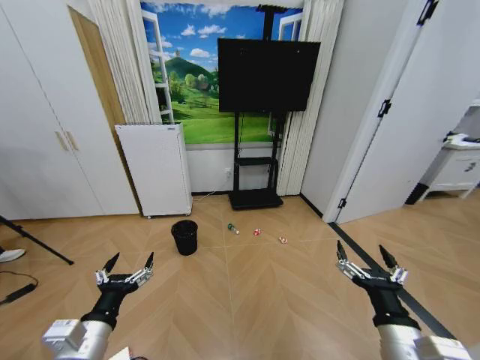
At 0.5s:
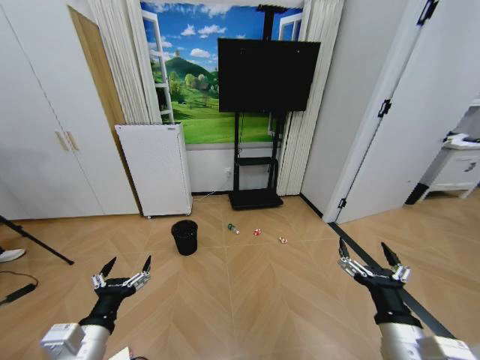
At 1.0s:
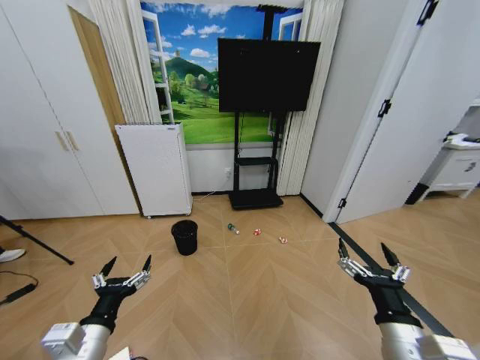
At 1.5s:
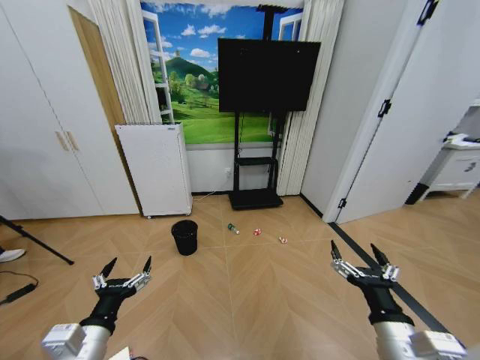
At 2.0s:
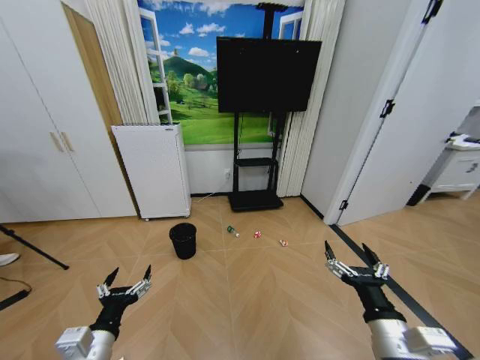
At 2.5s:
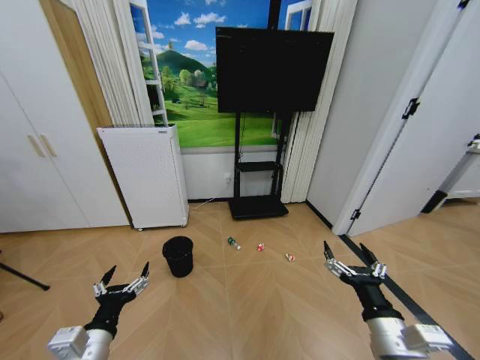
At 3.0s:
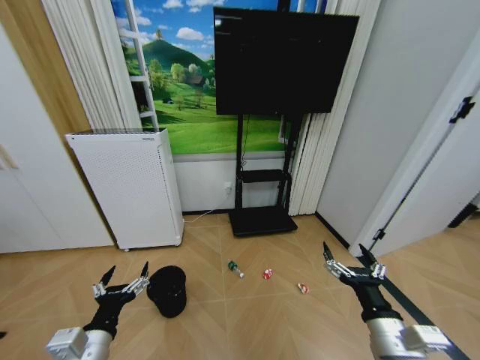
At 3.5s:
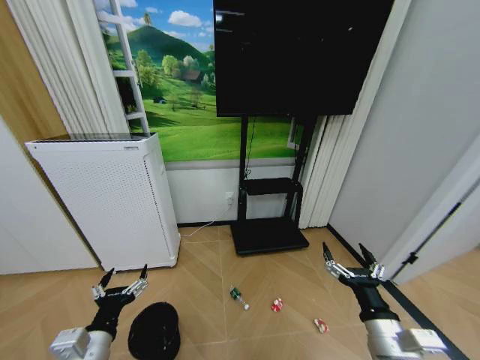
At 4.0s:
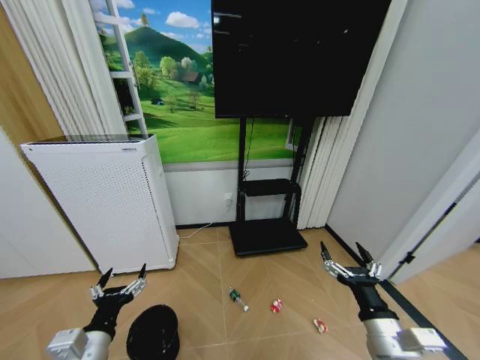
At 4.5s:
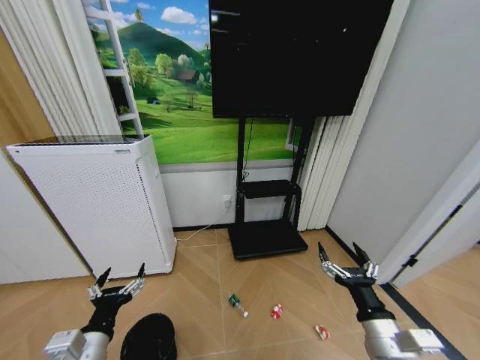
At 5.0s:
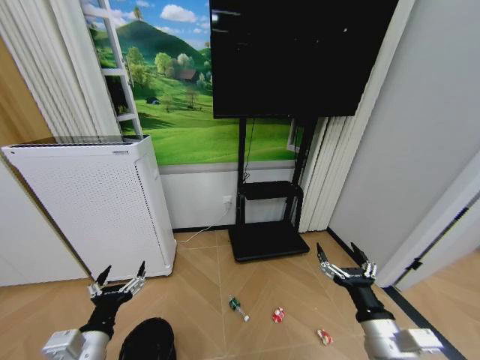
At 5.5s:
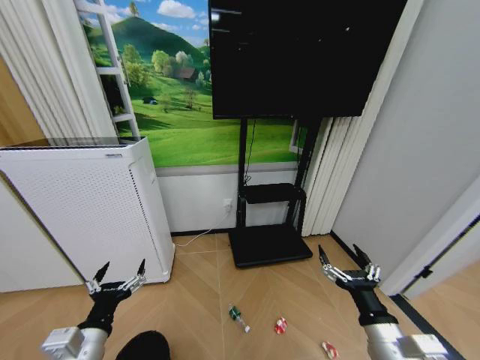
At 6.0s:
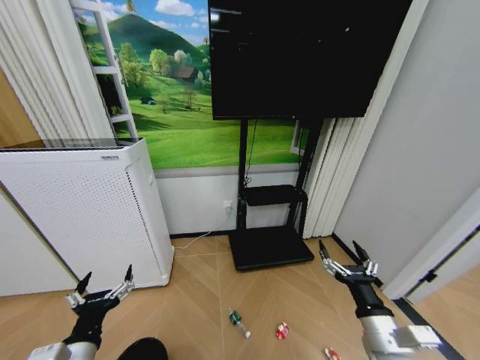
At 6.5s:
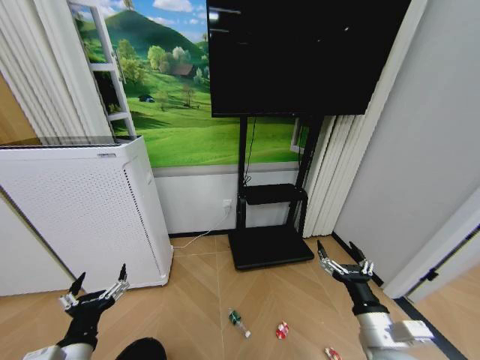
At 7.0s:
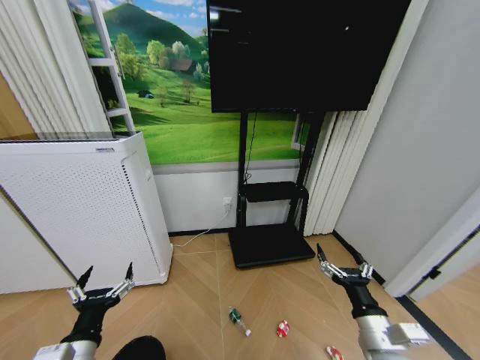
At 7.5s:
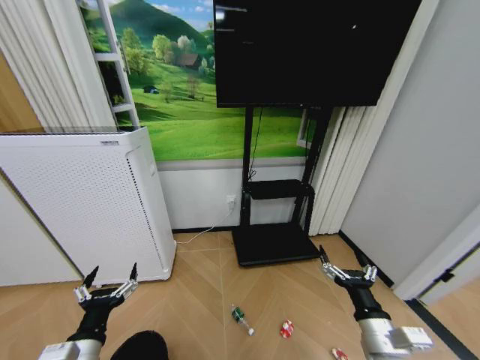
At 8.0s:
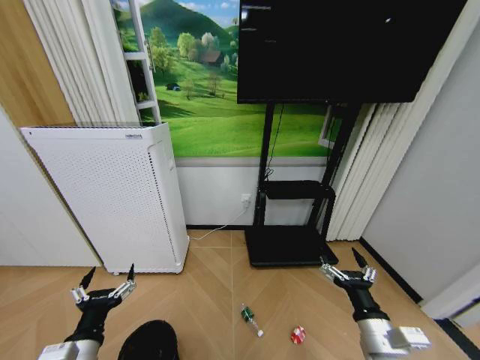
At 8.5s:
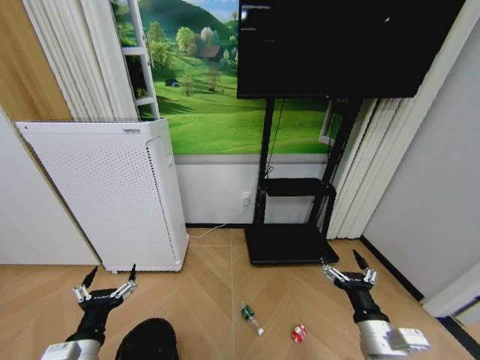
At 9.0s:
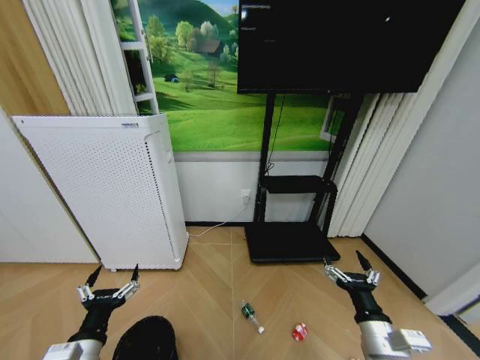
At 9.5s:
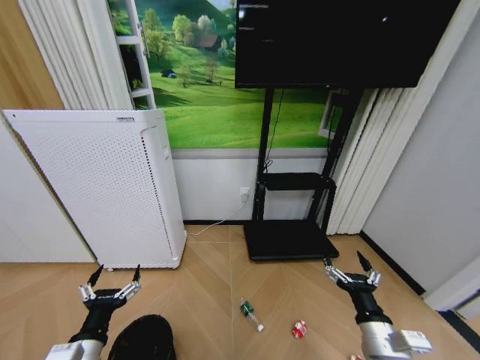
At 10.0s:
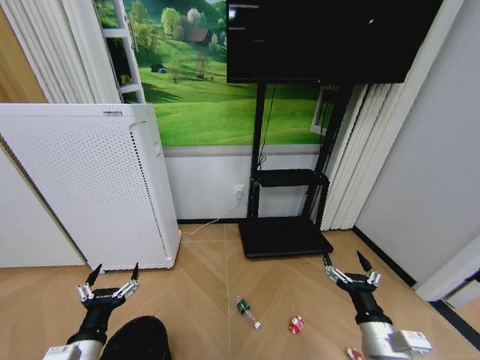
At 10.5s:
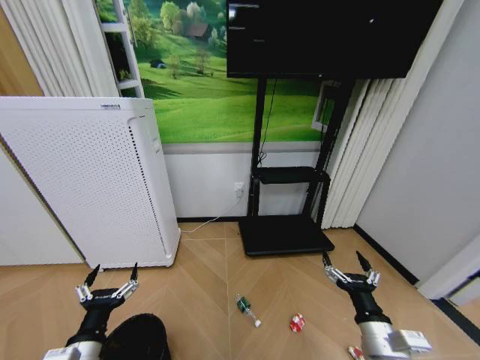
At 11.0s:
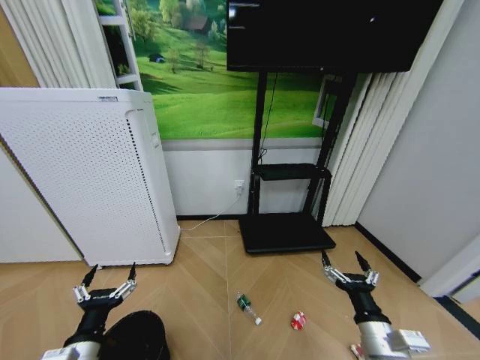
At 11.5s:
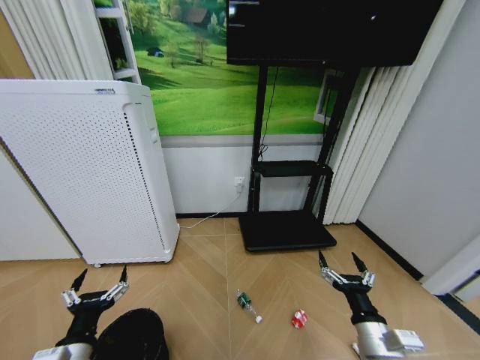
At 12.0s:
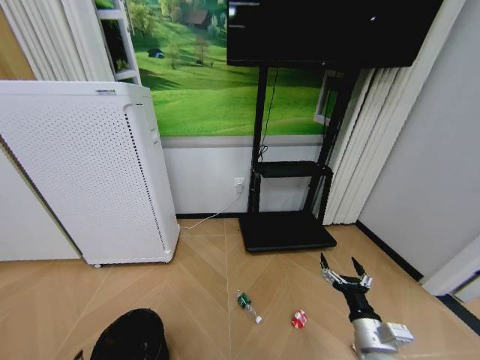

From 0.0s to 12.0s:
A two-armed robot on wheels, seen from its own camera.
Task of the whole recording: Pick up the trash bin and place the garbage on the floor into it.
From 10.0s to 12.0s: The left gripper moves backward and to the left, approximately 10 cm.

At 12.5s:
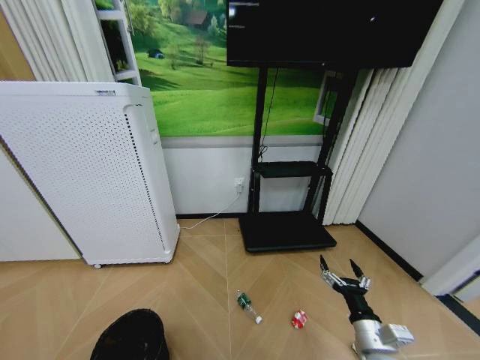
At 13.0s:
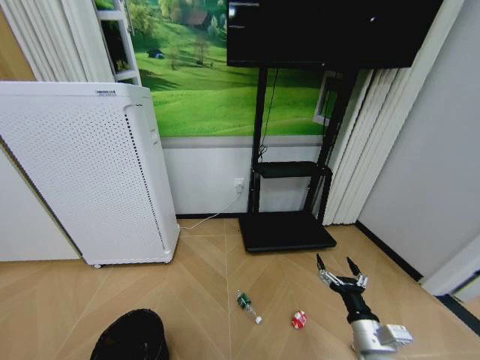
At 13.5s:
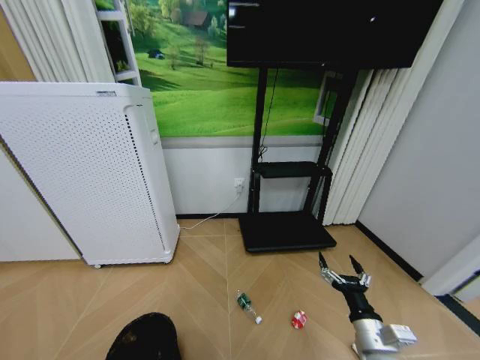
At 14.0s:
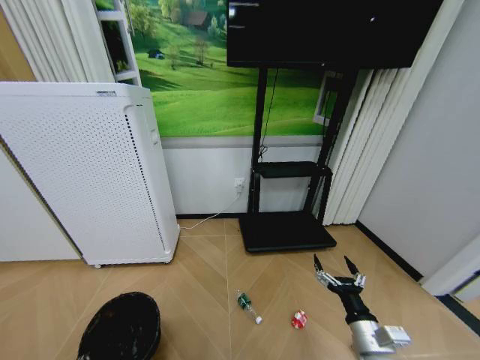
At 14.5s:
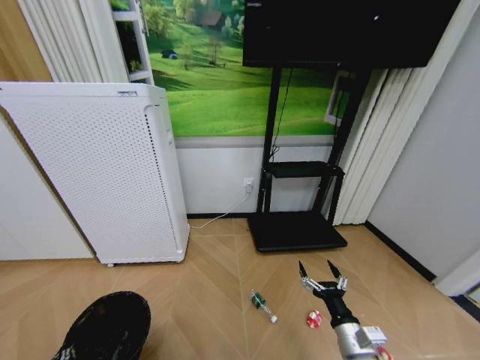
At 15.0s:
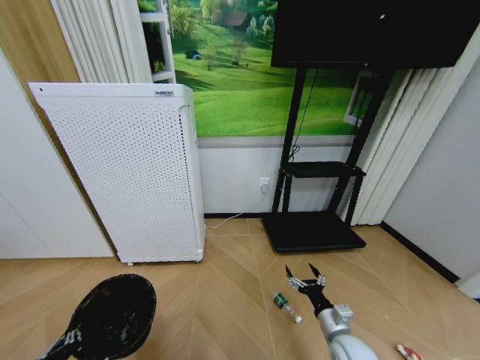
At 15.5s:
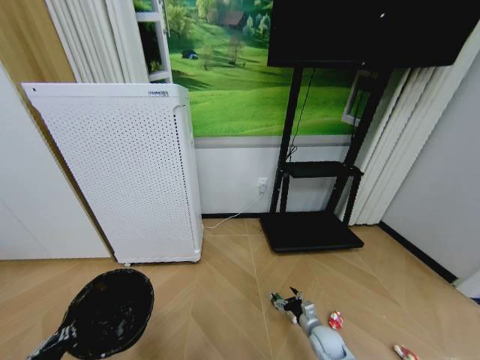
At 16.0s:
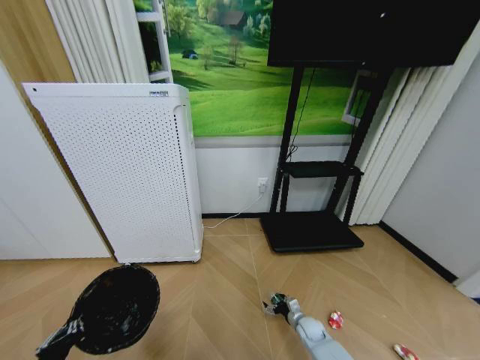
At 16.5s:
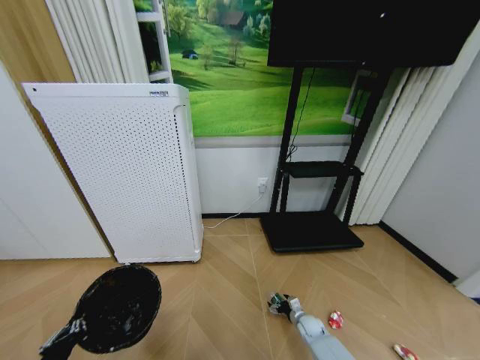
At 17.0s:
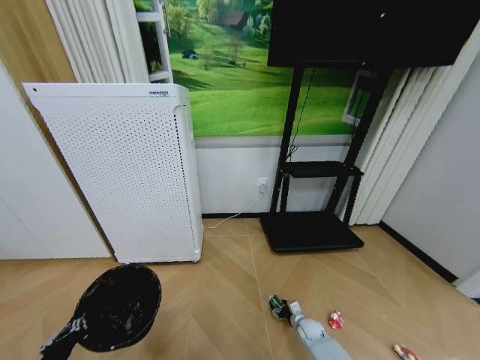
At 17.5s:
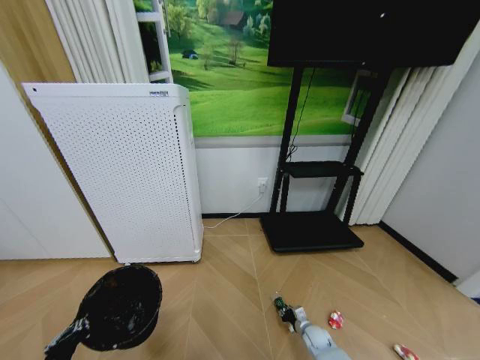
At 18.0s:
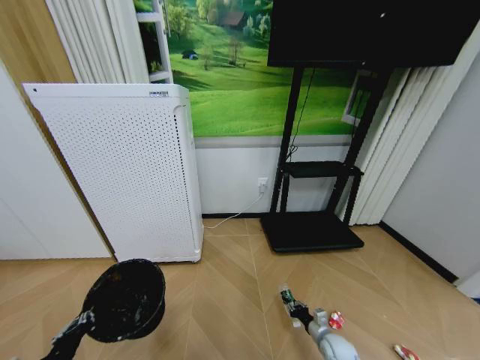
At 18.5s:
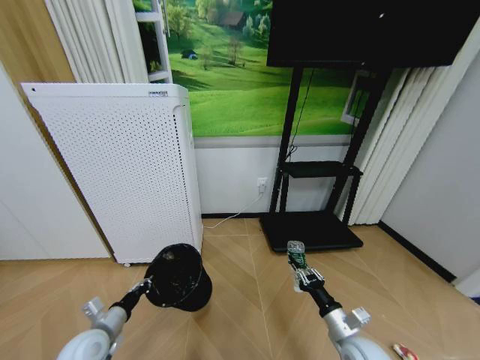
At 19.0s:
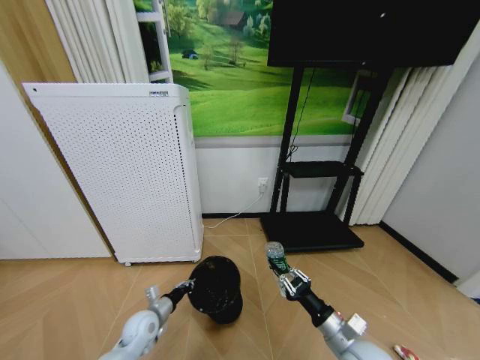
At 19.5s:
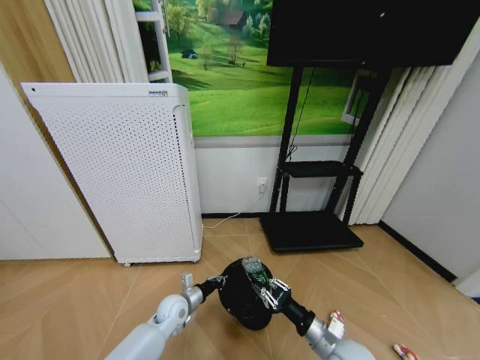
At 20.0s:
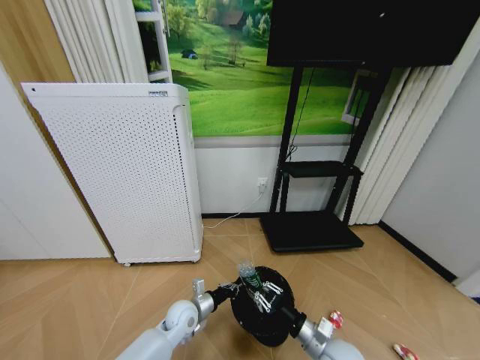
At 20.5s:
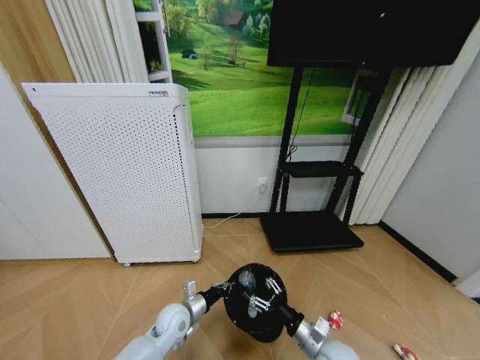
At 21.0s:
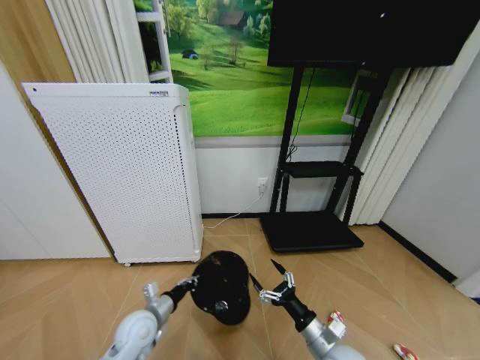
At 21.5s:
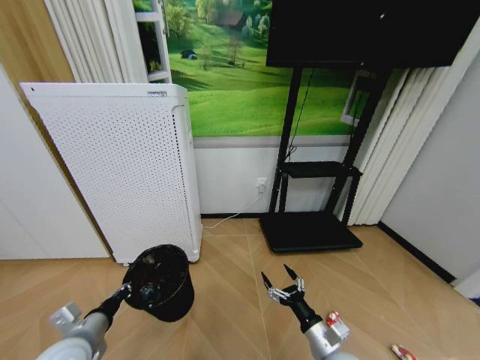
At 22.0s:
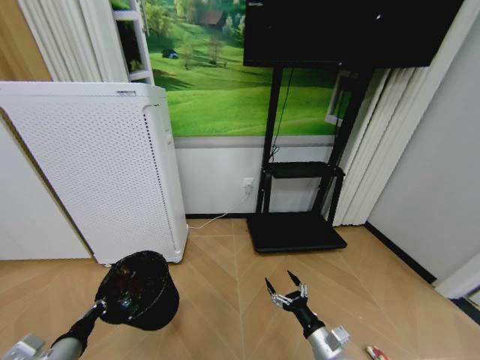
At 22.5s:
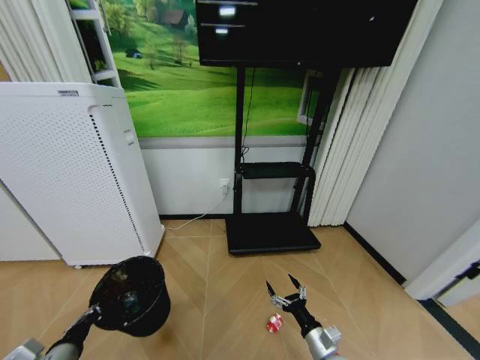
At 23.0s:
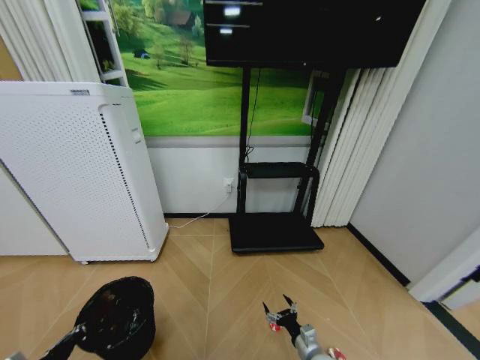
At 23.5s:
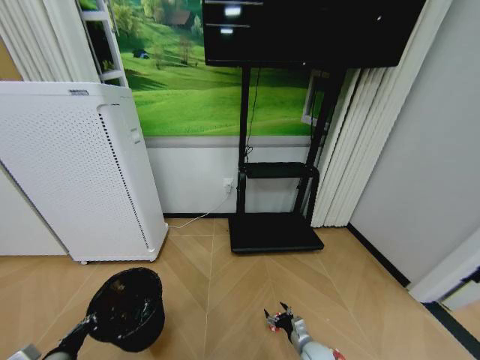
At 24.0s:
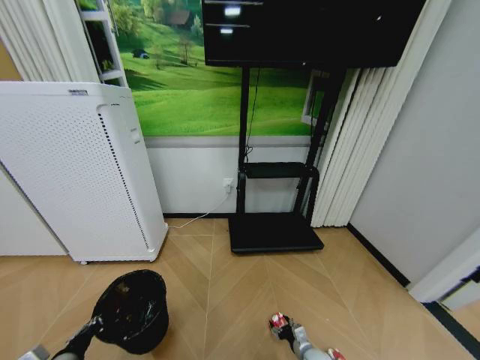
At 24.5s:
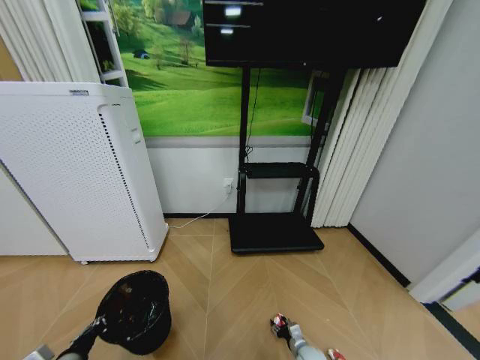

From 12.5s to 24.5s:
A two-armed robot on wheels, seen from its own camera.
Task of the whole recording: Pick up the trash bin and place the garbage on the floor into it.
From 12.5s to 14.5s: The left gripper closes up.
From 14.5s to 16.5s: The right gripper heads downward and forward, covering approximately 30 cm. Meanwhile the left gripper moves upward, some 5 cm.
From 16.5s to 18.5s: The left gripper is displaced forward and downward by about 15 cm. The right gripper shifts roughly 25 cm upward and backward, and closes.
From 18.5s to 20.5s: The left gripper goes approximately 20 cm to the right and forward, while the right gripper goes roughly 5 cm to the left, and opens up.
From 20.5s to 22.5s: The left gripper heads to the left, backward and upward, covering approximately 30 cm; the right gripper ends up some 5 cm from where it was.
From 22.5s to 24.5s: The right gripper shifts about 20 cm downward, and closes up.

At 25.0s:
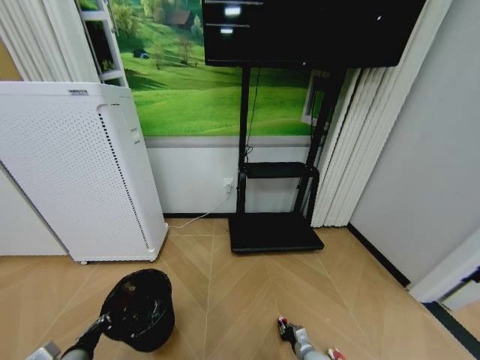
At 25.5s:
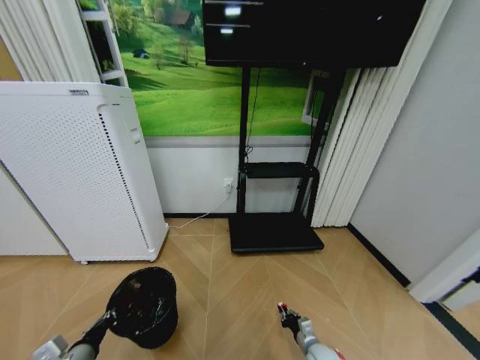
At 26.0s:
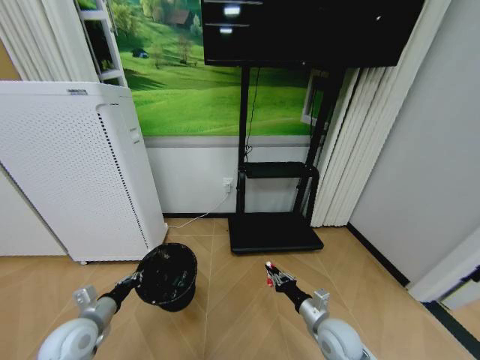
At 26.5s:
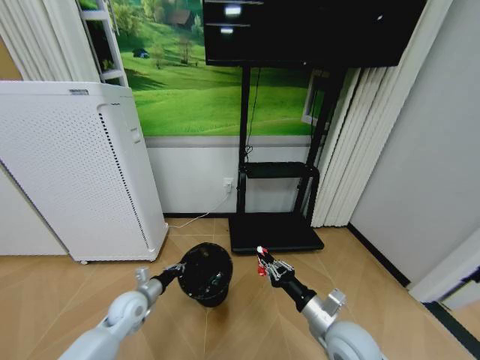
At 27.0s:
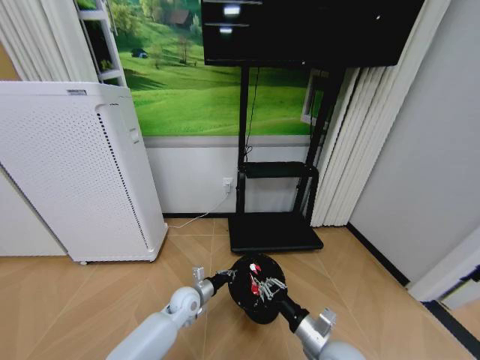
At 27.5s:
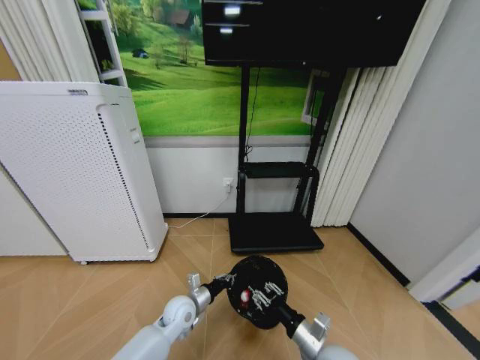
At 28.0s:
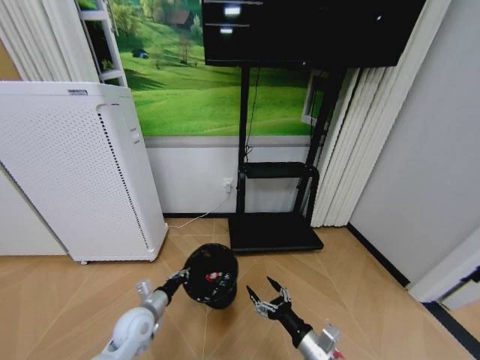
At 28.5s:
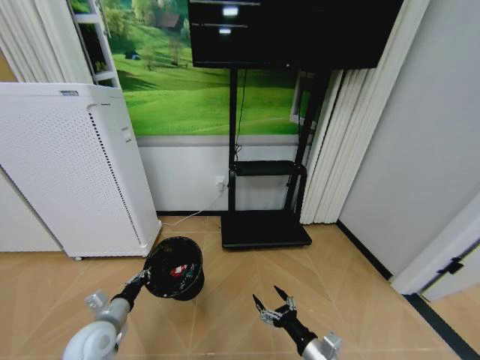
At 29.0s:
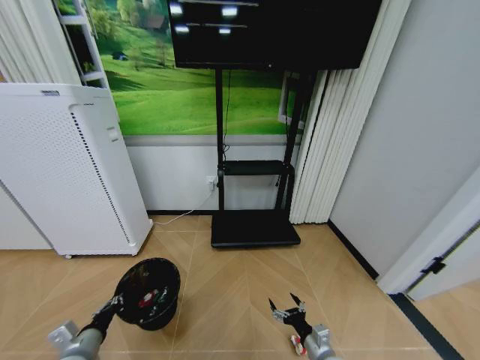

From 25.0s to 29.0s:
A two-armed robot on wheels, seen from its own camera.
Task of the whole recording: Pick up the trash bin and place the garbage on the floor into it.
From 25.0s to 27.0s: The right gripper travels upward by about 30 cm, while the left gripper heads forward, to the right and downward, covering approximately 30 cm.
From 27.0s to 29.0s: The right gripper heads downward, covering approximately 10 cm, and opens its fingers, while the left gripper travels to the left and backward by approximately 30 cm.
